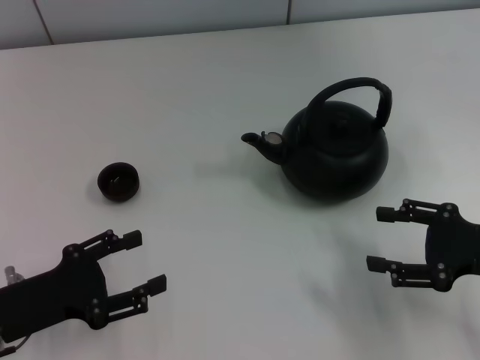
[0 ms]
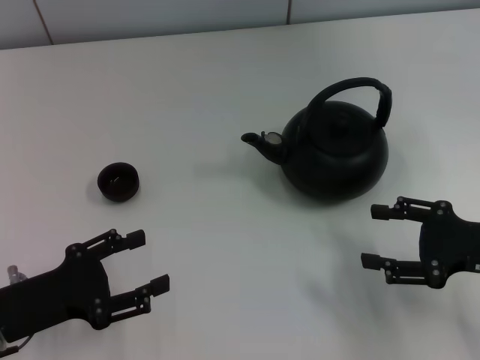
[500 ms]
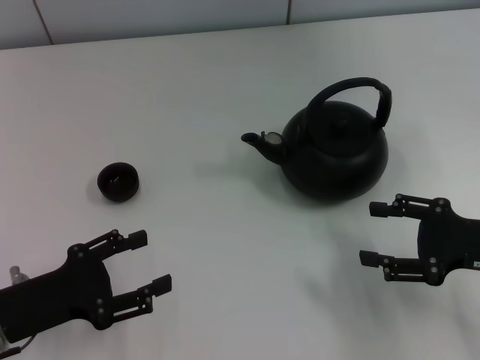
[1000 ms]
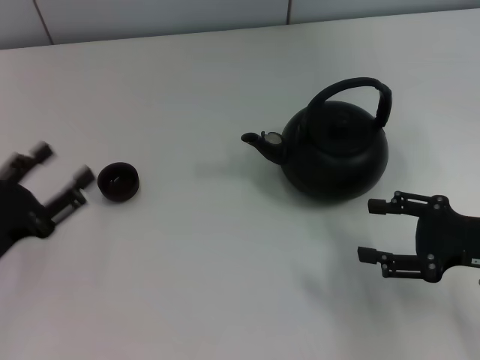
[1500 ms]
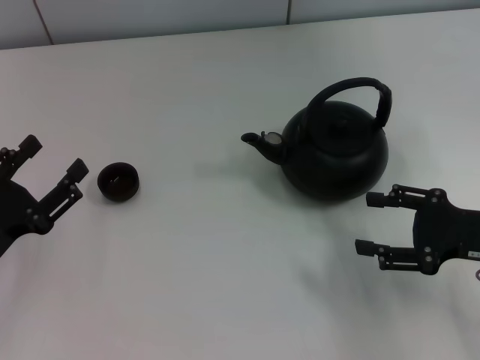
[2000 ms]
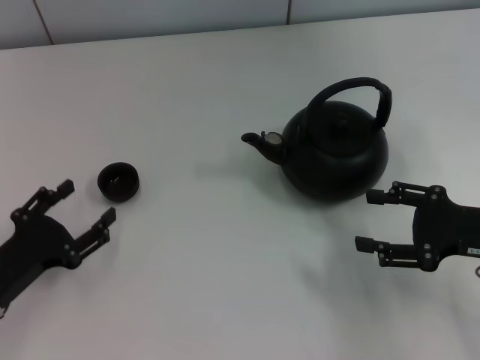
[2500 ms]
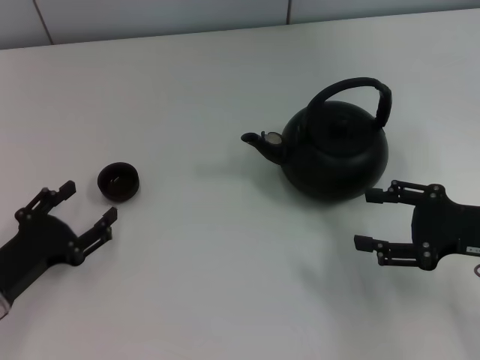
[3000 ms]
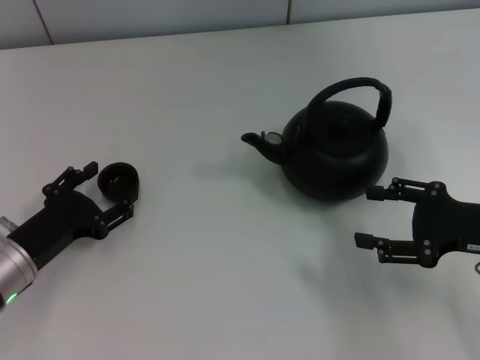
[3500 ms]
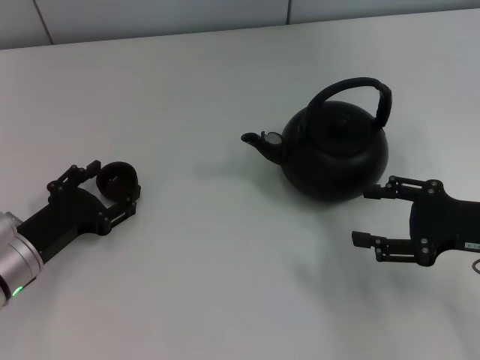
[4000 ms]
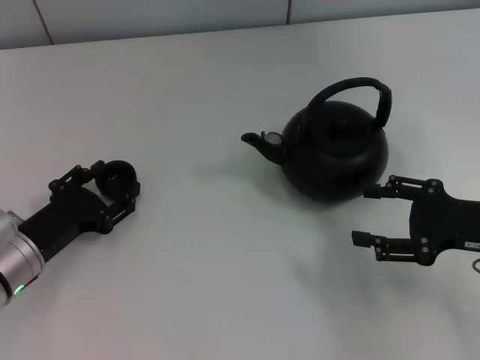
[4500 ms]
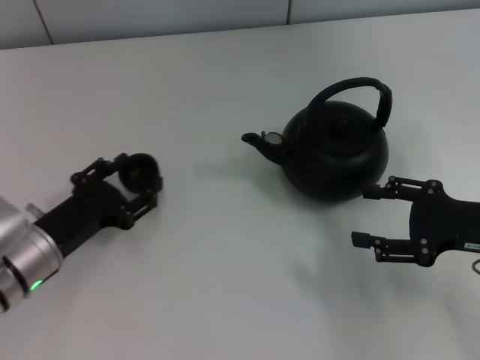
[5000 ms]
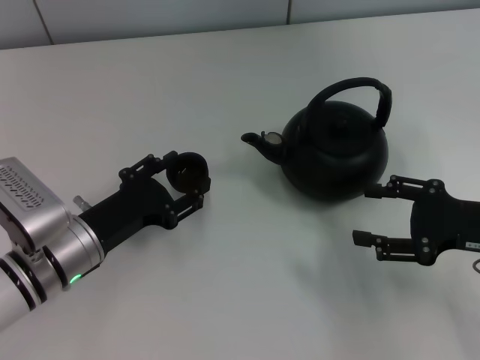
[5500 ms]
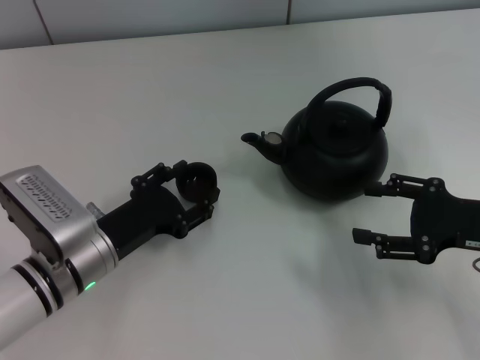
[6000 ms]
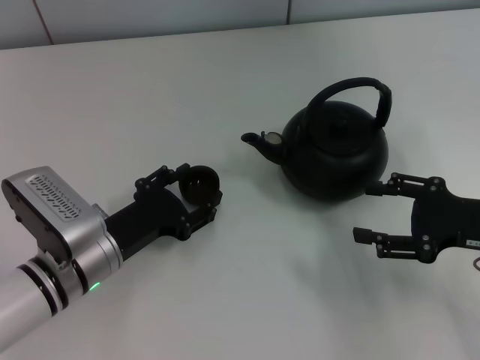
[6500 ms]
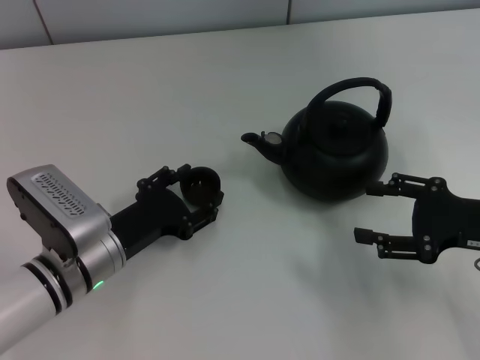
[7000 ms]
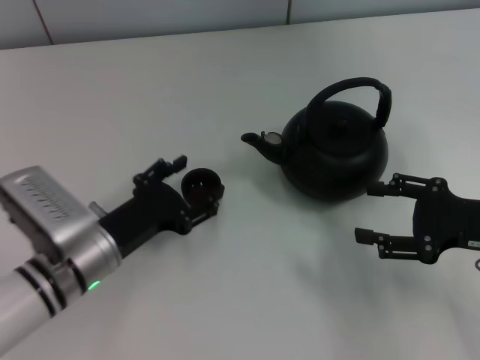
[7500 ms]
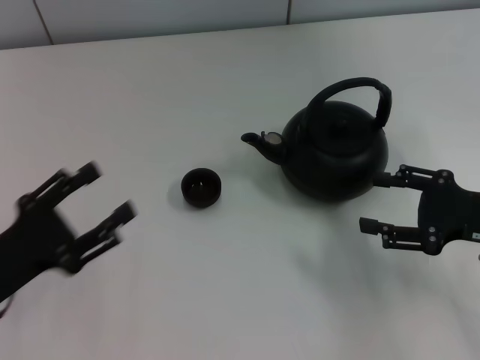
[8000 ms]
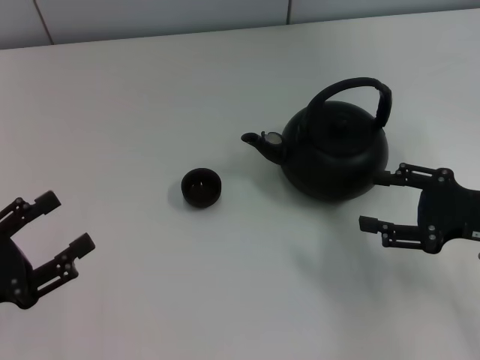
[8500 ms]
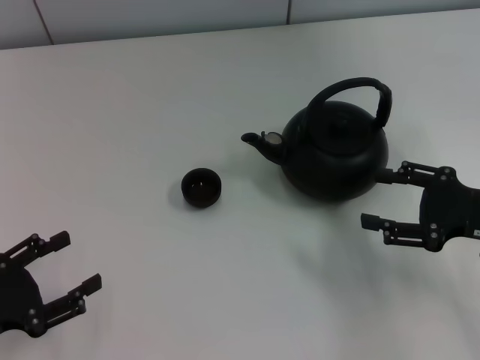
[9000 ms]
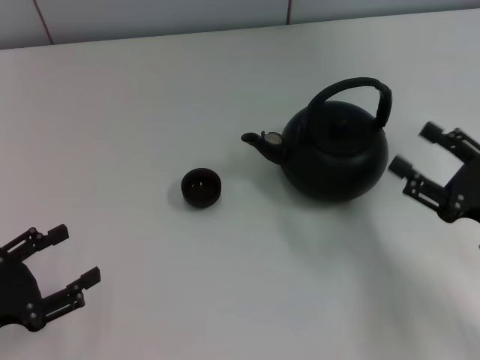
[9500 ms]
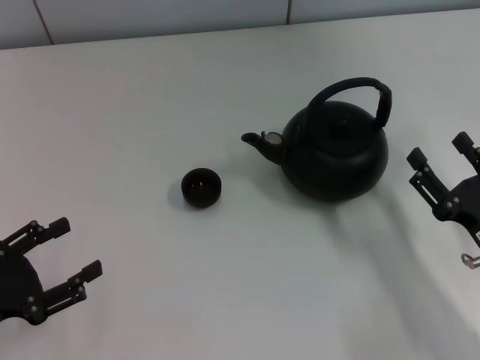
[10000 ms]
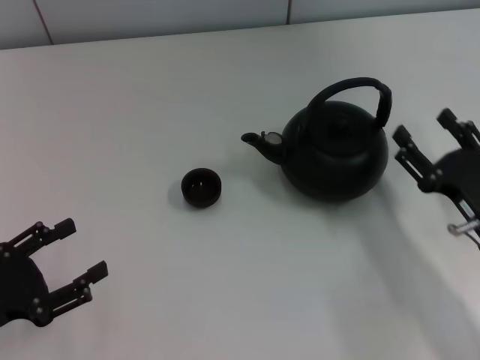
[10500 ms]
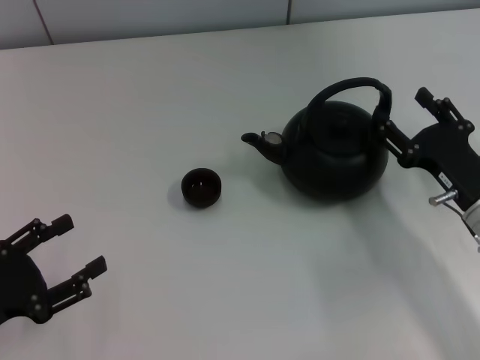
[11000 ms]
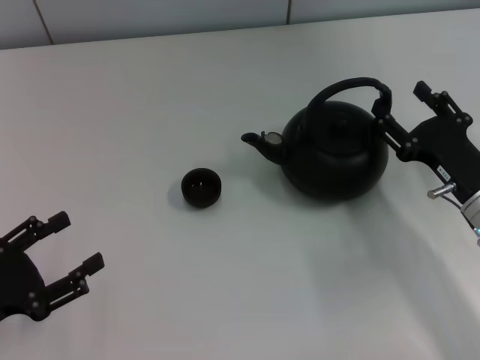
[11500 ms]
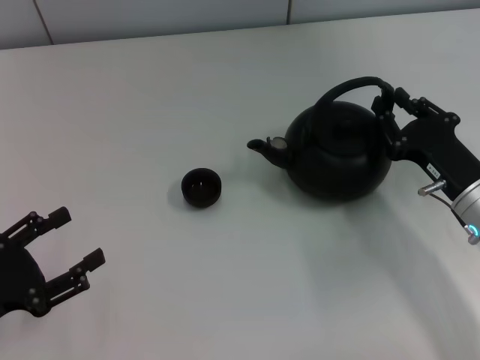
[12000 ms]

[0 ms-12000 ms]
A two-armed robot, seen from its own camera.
Task of the whole recording: Grasp the handle of the teapot with one hand and pour tea into the teacup.
Step, 0 ms to 5000 ms: Pick up the teacup with the left gripper.
Step, 5500 ms to 7500 ms: Place the teacup in the center of view with the left gripper.
2000 ms to 4000 ms: The left gripper moves some 5 cm.
4000 ms to 6000 ms: The left gripper shifts approximately 5 cm to the right.
6000 ms to 8000 ms: The left gripper heads to the left, covering roughly 10 cm.
8000 ms to 10000 ms: The left gripper moves to the left, about 5 cm, while the right gripper shifts approximately 10 cm backward and downward.
10000 ms to 12000 ms: The right gripper heads forward, covering about 10 cm, and closes.

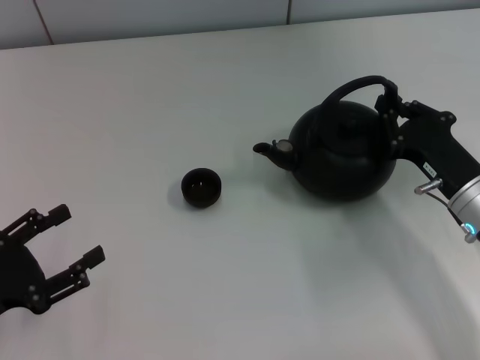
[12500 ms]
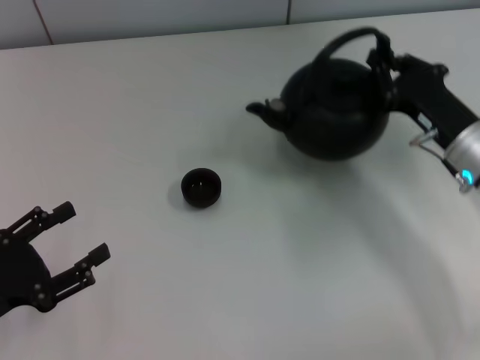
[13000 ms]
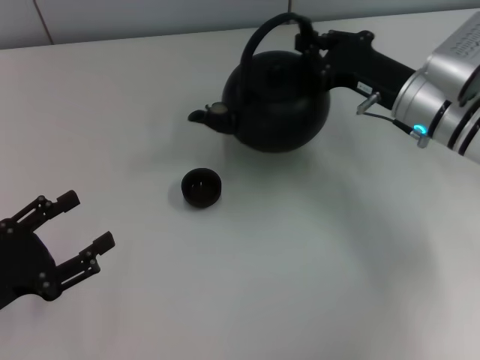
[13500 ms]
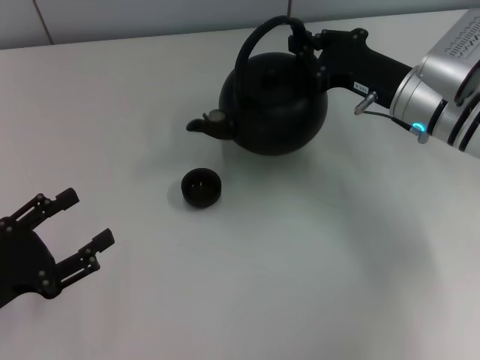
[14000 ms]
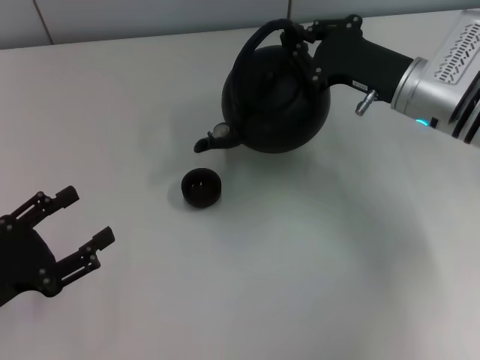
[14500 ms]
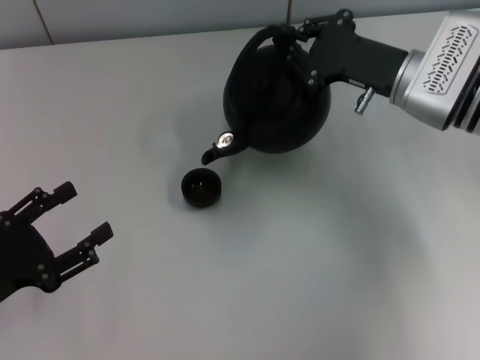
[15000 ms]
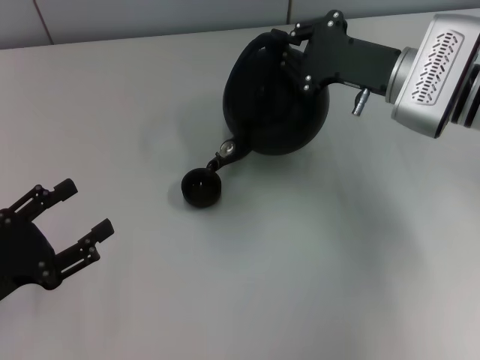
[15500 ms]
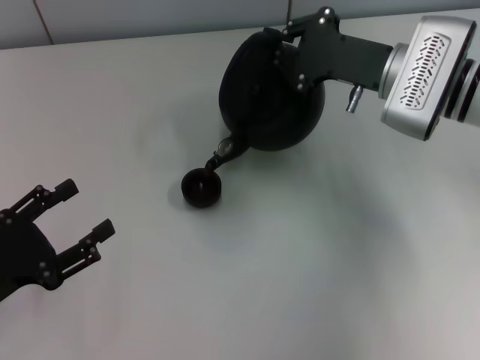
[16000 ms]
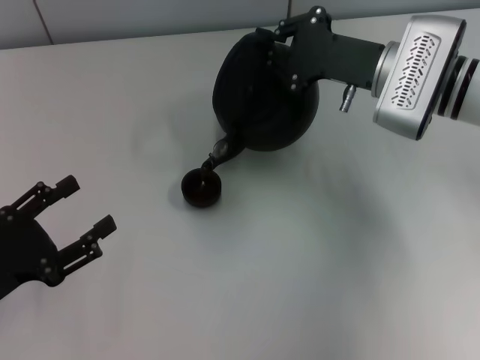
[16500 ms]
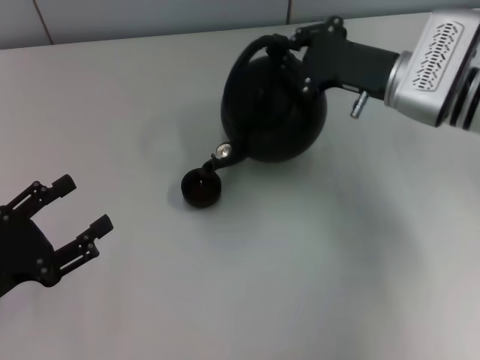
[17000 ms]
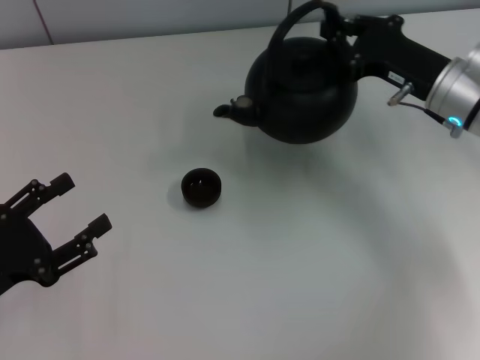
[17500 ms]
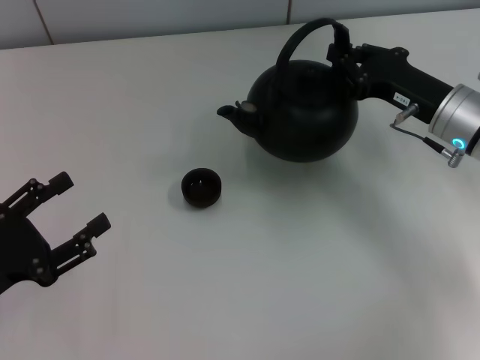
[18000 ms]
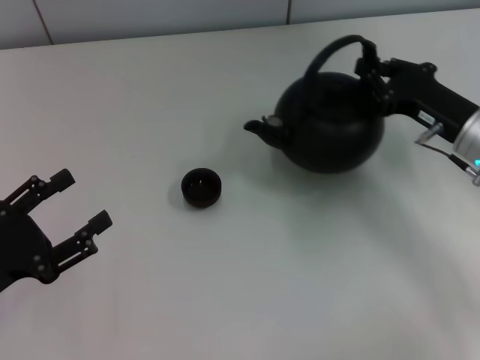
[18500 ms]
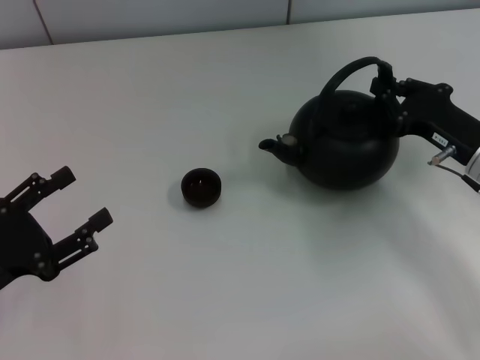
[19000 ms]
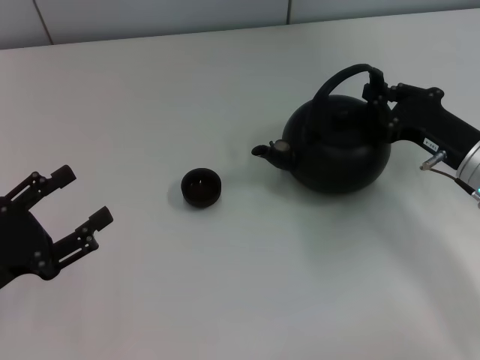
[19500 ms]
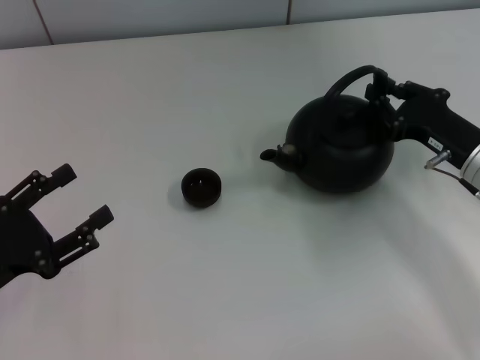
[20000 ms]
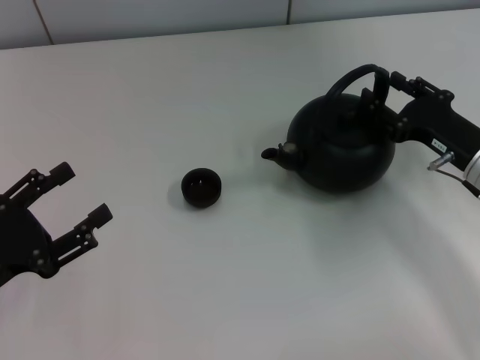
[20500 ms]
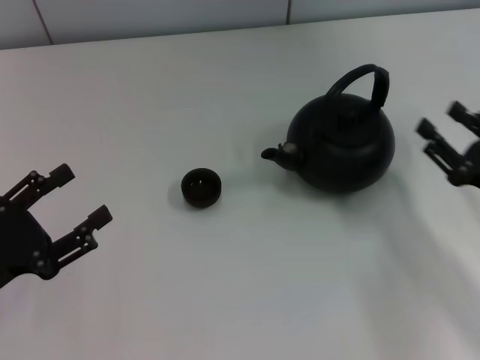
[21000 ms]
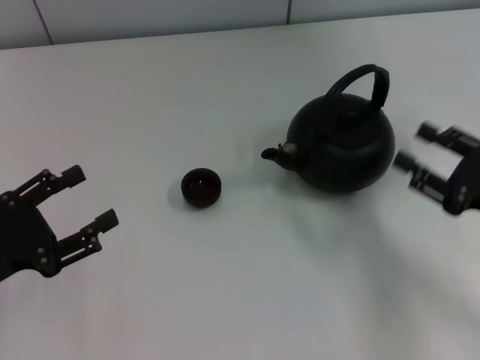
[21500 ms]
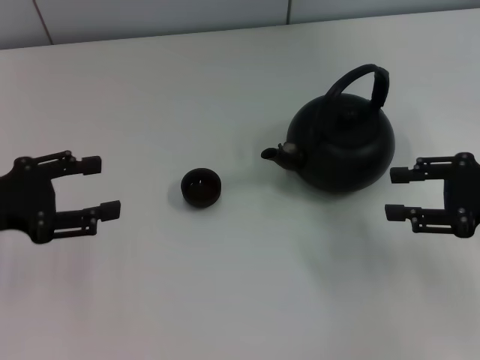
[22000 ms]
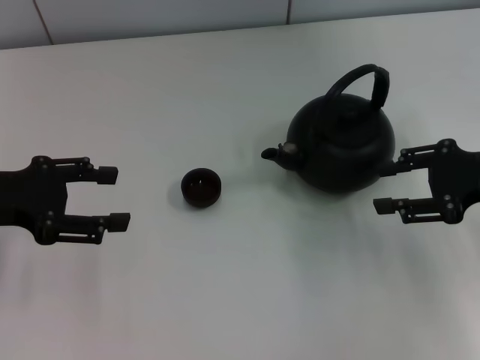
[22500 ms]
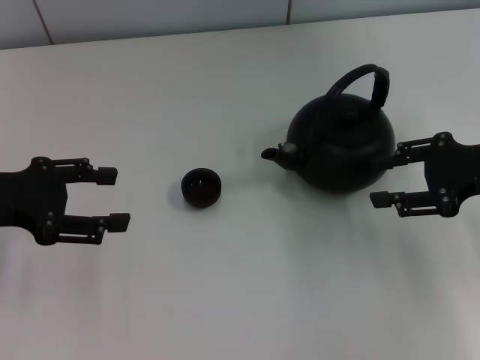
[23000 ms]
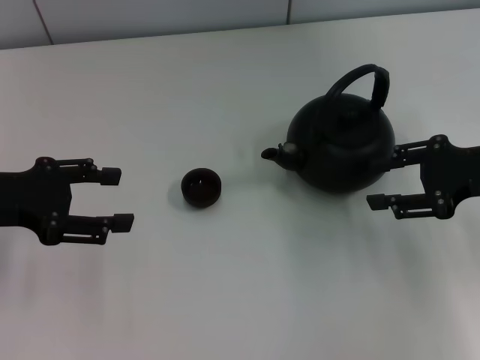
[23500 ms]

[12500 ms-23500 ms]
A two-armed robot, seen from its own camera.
Task of the whole recording: Grasp the handle of the teapot with one hand and pour tea into the teacup.
Step, 18000 ms to 20500 ms: Put down the teapot with the right gripper.
12500 ms to 14500 ms: The right gripper is displaced forward and upward by roughly 15 cm.
16000 ms to 18000 ms: The right gripper shifts by approximately 5 cm.
18000 ms to 20000 ms: The right gripper shifts by about 5 cm.
20000 ms to 21500 ms: The right gripper shifts approximately 10 cm backward, and opens its fingers.
21500 ms to 23500 ms: Both grippers move forward and upward, some 10 cm.

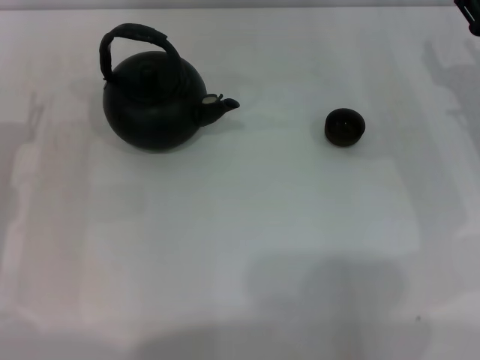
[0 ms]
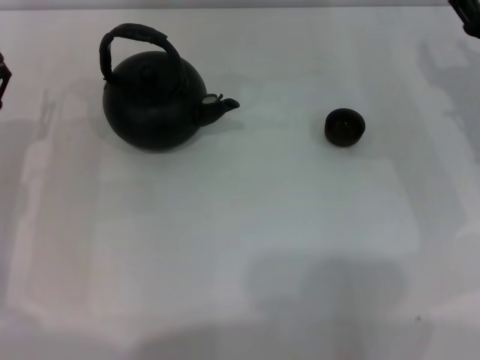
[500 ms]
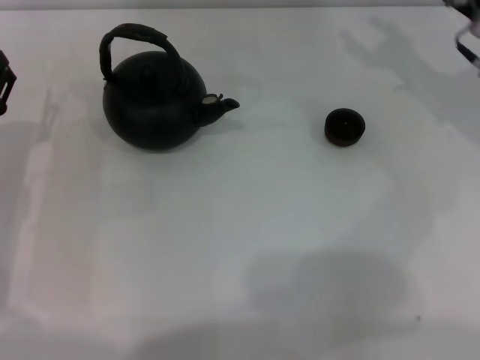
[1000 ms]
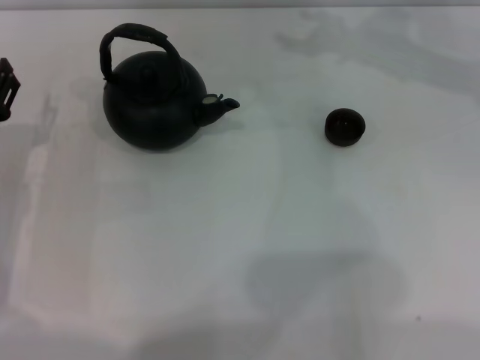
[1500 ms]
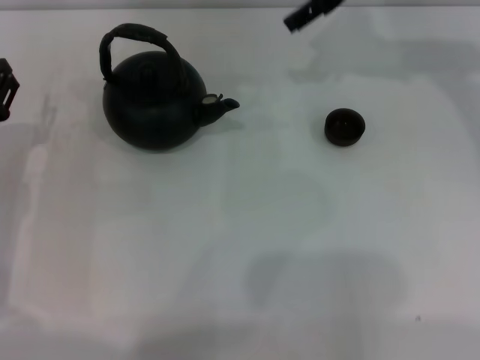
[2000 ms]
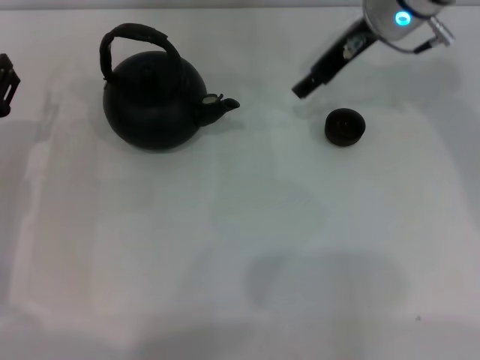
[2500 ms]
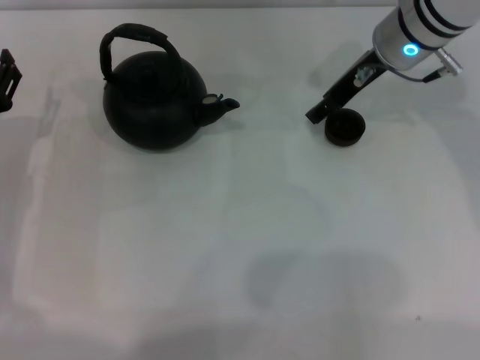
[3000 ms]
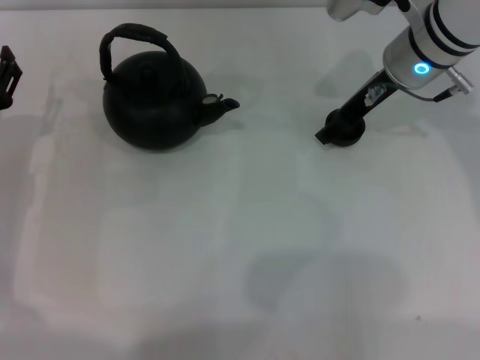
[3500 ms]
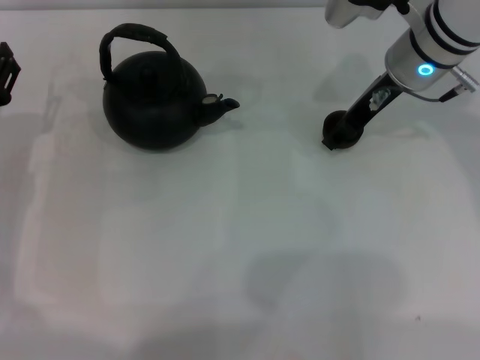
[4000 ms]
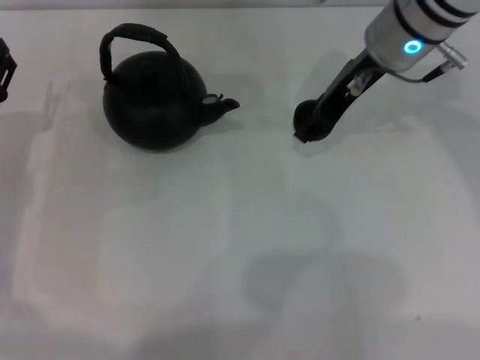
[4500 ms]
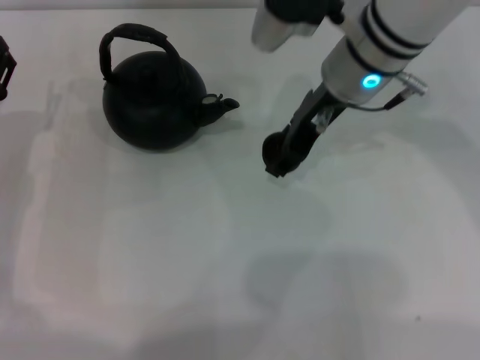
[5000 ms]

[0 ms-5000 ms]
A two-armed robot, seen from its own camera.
Task of the whole recording: Grasp the handle of the teapot with one hand and pour tea into the teacup.
Step, 0 ms to 4000 ms: Pick up the teacup with the right gripper.
0 ms to 2500 ms: The right gripper is displaced to the left, upward and forward by about 20 cm.
2500 ms to 5000 ms: The right gripper moves backward, about 5 cm, and closes up.
